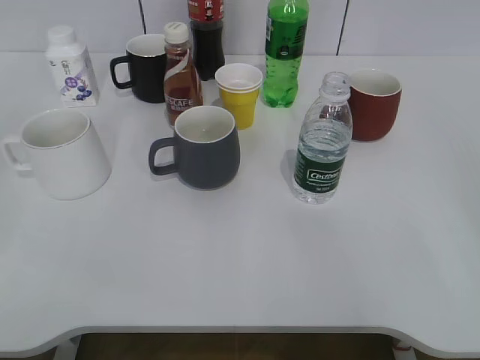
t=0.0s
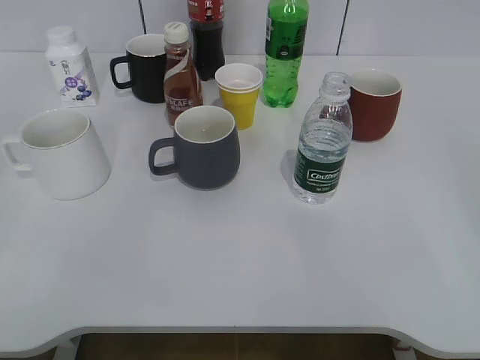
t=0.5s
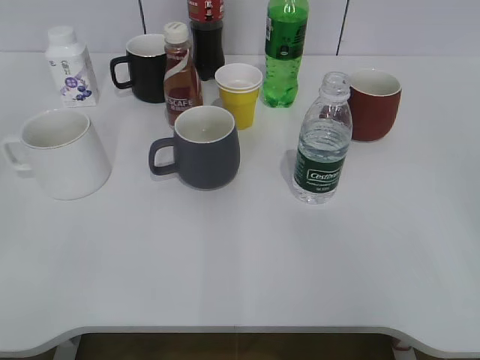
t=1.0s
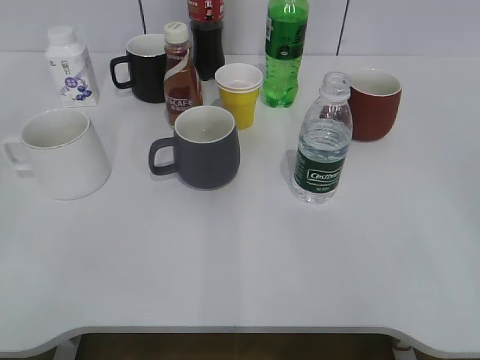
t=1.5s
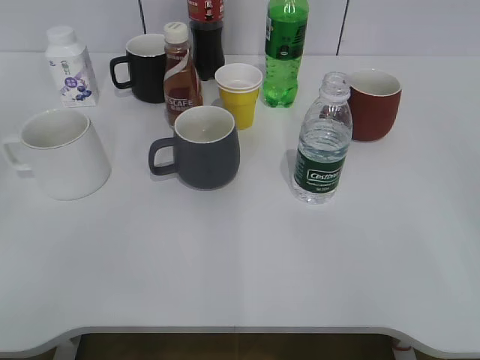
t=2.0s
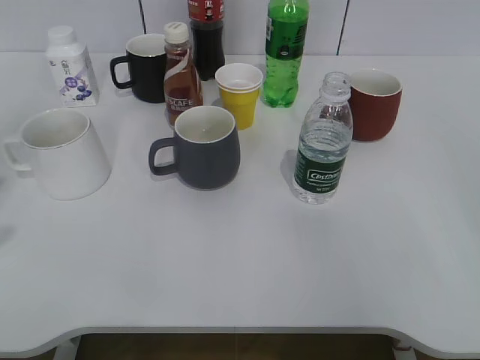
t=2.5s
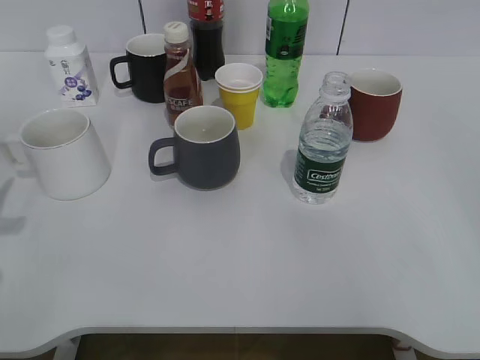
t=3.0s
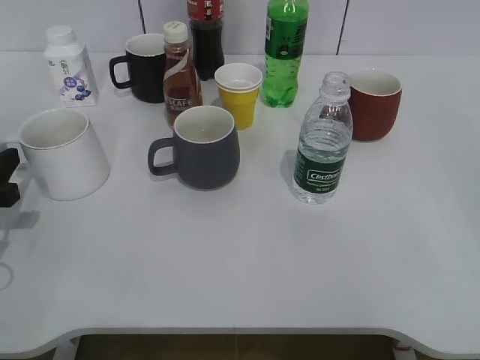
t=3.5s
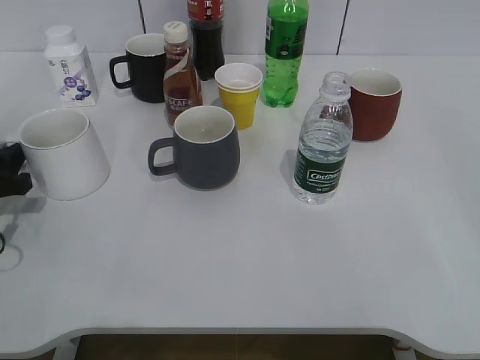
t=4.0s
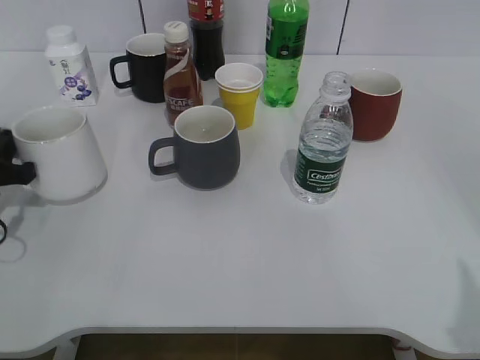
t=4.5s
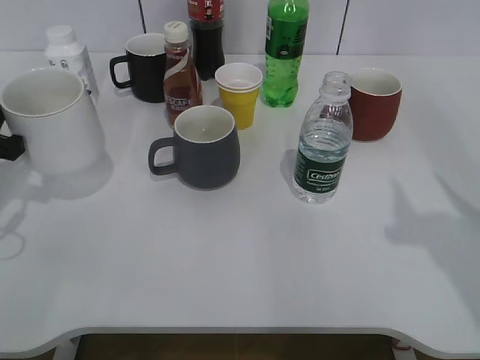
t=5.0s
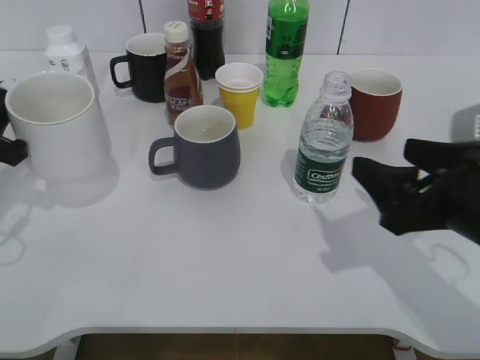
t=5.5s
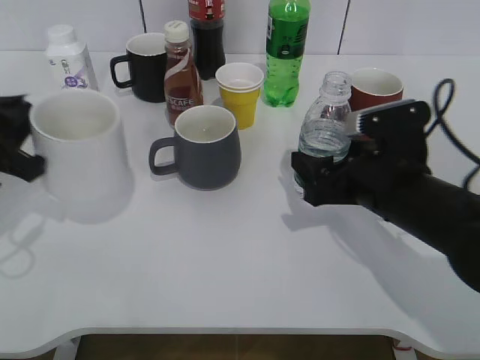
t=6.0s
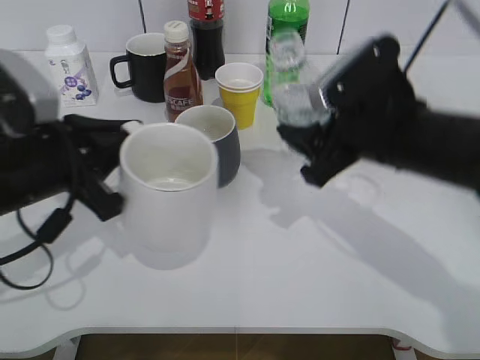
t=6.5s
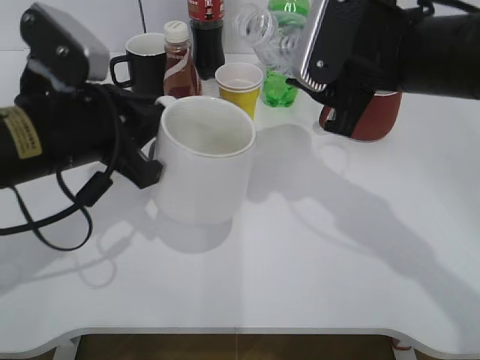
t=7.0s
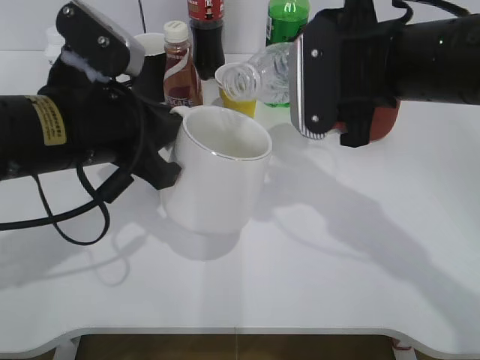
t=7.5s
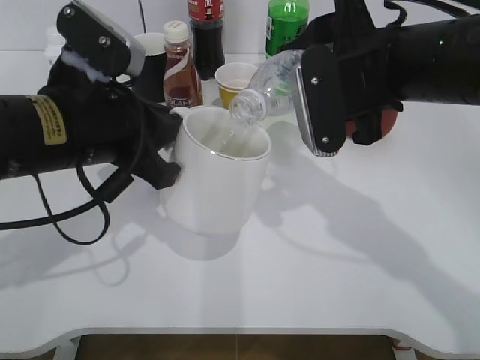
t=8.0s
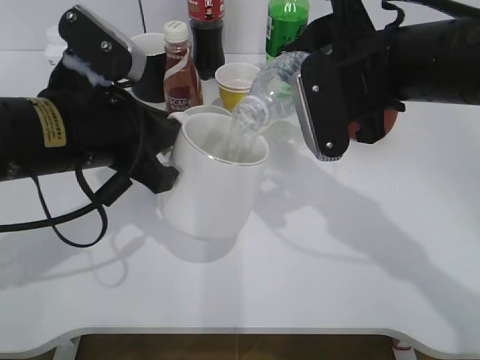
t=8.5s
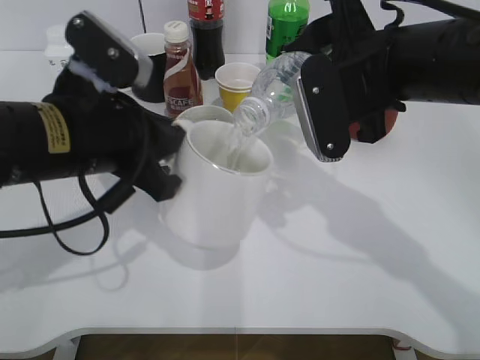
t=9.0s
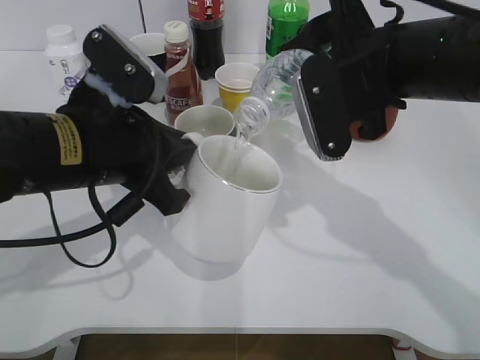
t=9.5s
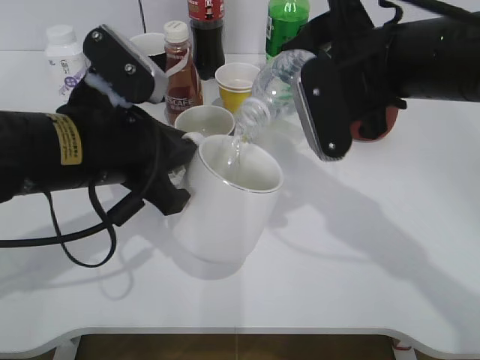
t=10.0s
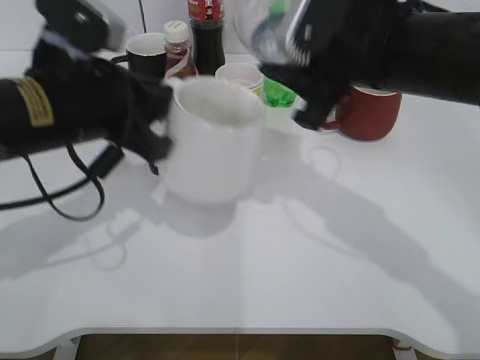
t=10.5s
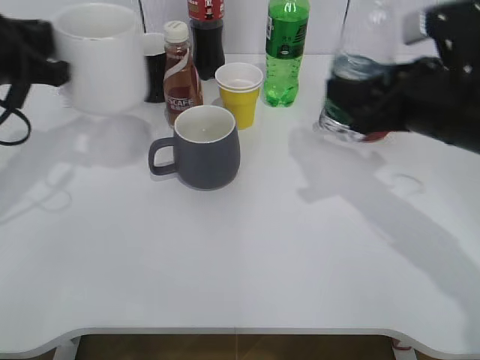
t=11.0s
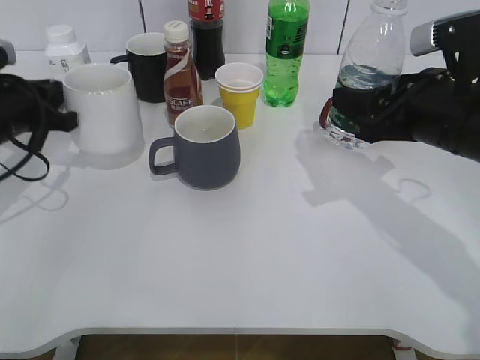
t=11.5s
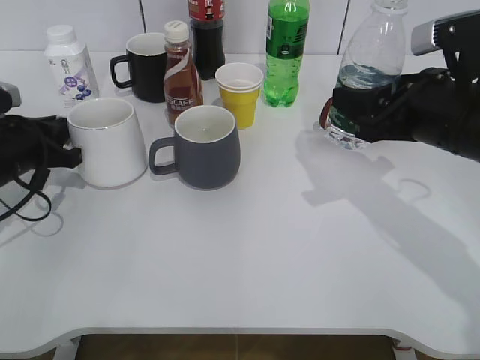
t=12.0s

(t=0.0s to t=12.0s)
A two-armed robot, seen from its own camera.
Step, t=2.0s - t=4.0s: Grasp the white cup with left gripper.
Step, t=4.5s - t=5.0s: Lift the white cup with left gripper.
Step, t=5.5s - t=6.0s: Grasp the bottle with water with right gripper.
Step, t=6.5s - t=10.0s: Pour the water from bottle to cup with right gripper.
t=2.0s - t=4.0s: The left gripper moves forward and downward, approximately 35 cm.
t=4.0s - t=6.0s: The left gripper heads upward, covering roughly 10 cm, and closes up; the right gripper travels forward, to the left and downward by roughly 35 cm, and opens its fingers.
t=6.0s - t=8.0s: The right gripper is displaced upward by about 10 cm, and closes; the left gripper is displaced to the right by about 15 cm.
t=8.0s - t=10.0s: There are only small adjustments of the grippers.
t=10.0s - t=12.0s: The right gripper is displaced to the right by approximately 10 cm; the left gripper goes about 20 cm to the left, downward and forward.

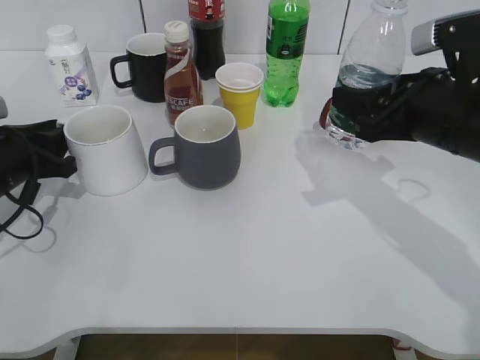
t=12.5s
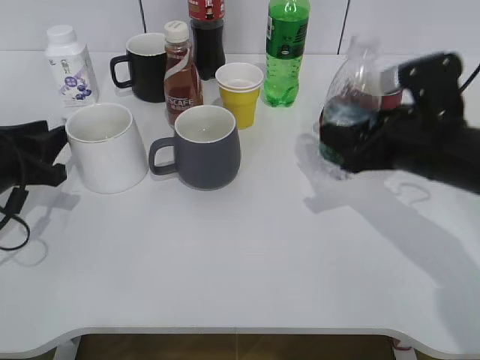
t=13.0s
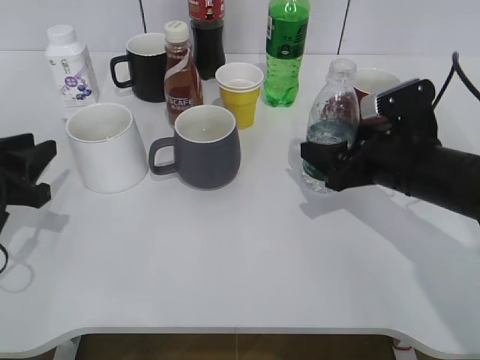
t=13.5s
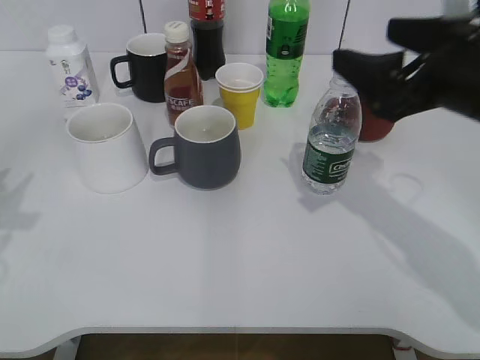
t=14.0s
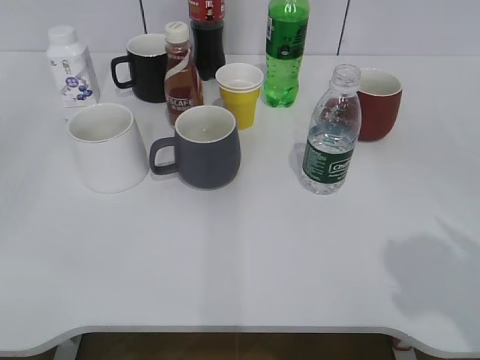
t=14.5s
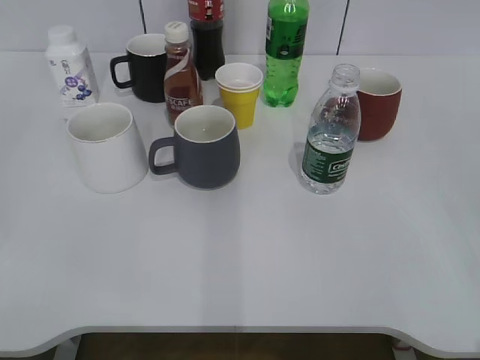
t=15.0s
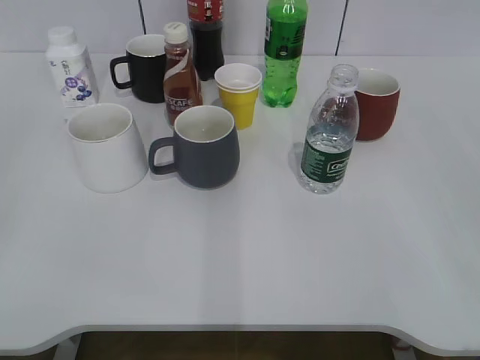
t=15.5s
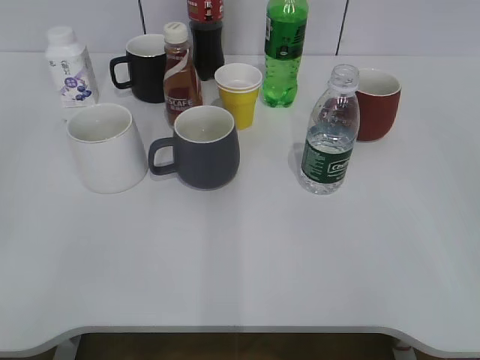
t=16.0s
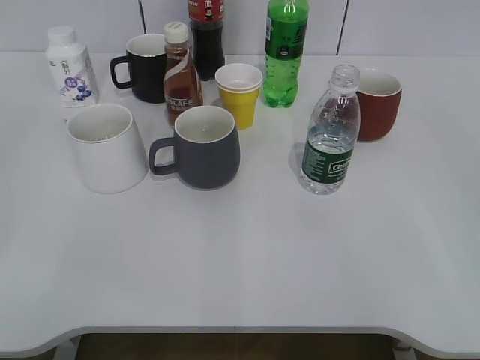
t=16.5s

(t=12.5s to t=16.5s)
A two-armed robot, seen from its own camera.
Step, t=12.5s - t=13.5s: Place the water bottle on the table with right gripper.
t=12.5s - t=14.5s: The right gripper goes approximately 20 cm backward and upward, and opens. Meanwhile the left gripper shifts some 35 cm backward and upward, and opens its fingers.
t=14.5s - t=16.5s: The right gripper is displaced backward and to the right by about 10 cm. Meanwhile the left gripper travels downward by roughly 5 cm.

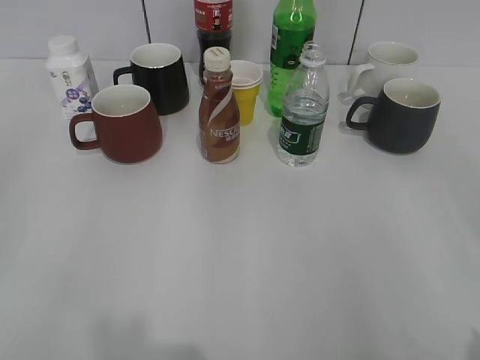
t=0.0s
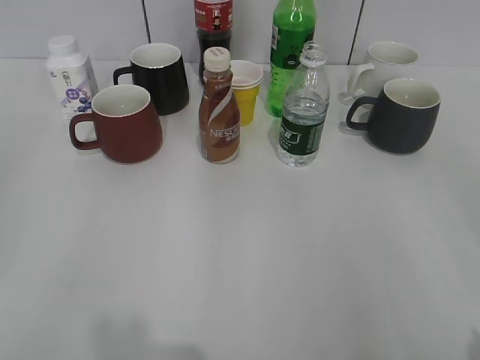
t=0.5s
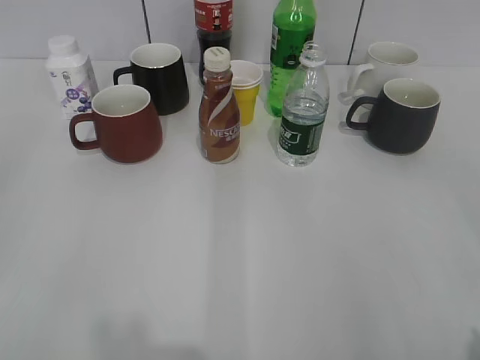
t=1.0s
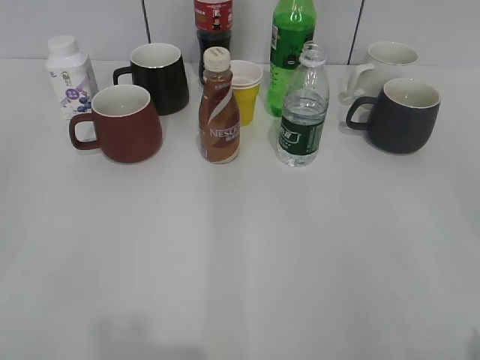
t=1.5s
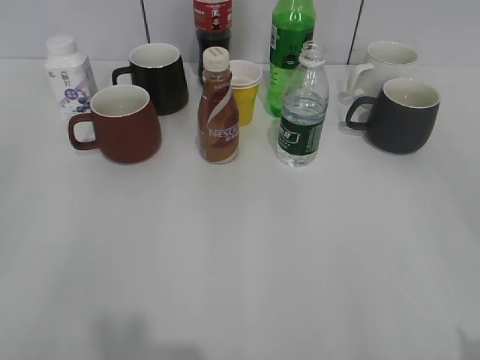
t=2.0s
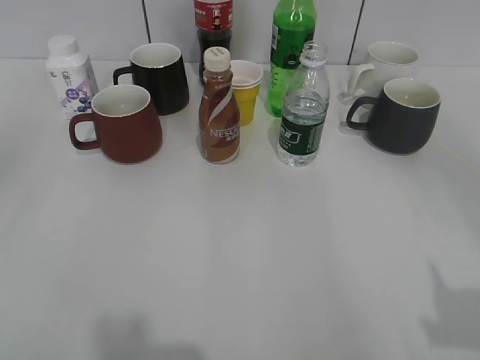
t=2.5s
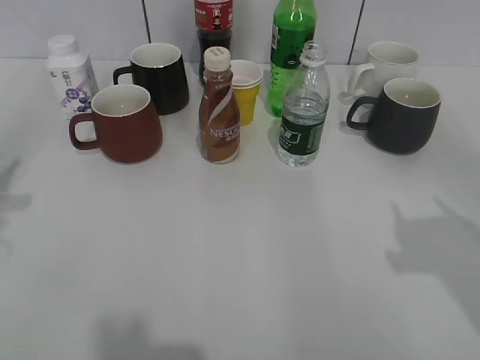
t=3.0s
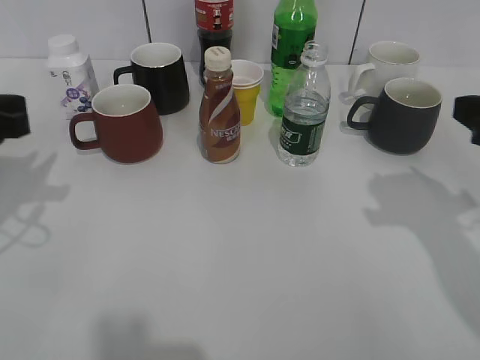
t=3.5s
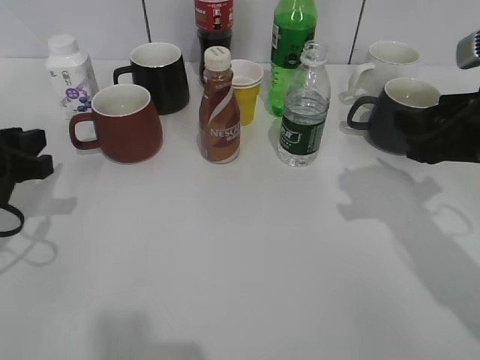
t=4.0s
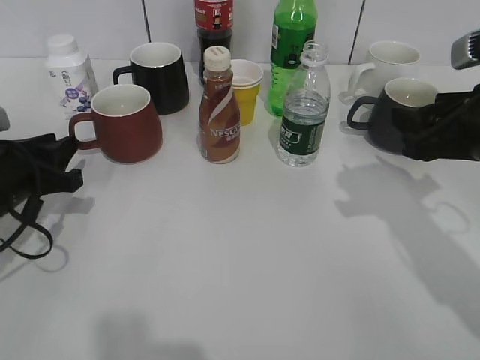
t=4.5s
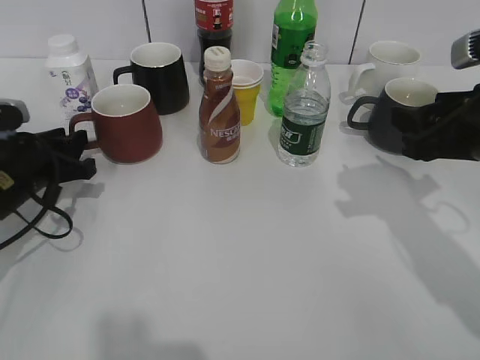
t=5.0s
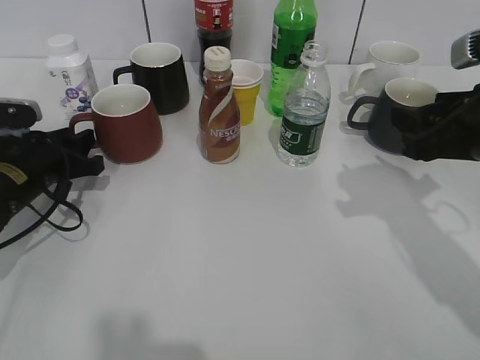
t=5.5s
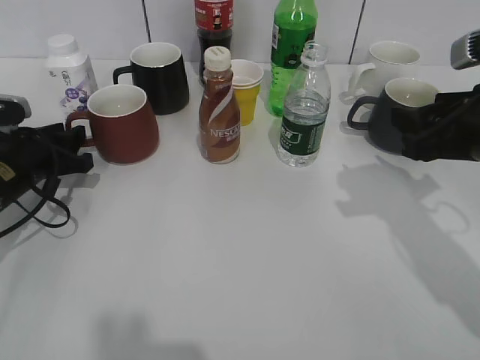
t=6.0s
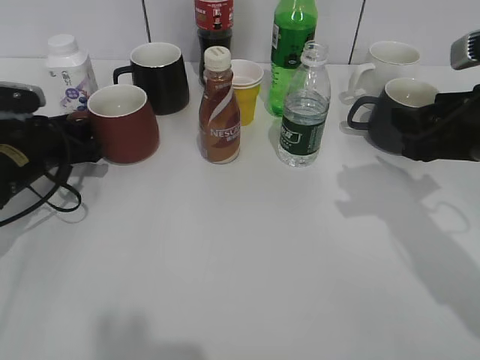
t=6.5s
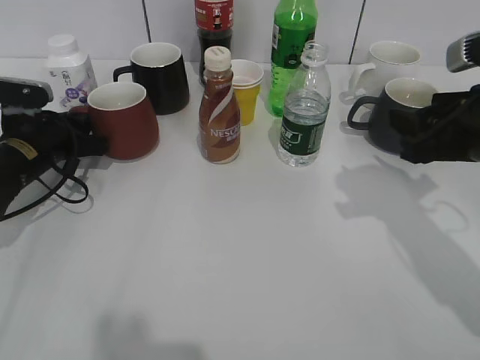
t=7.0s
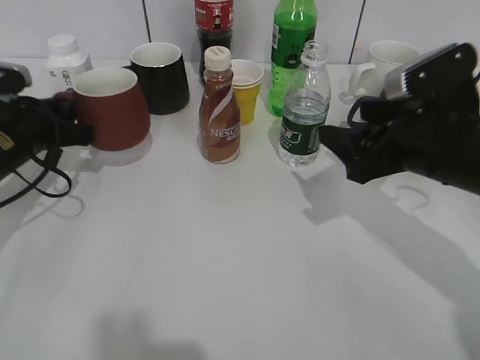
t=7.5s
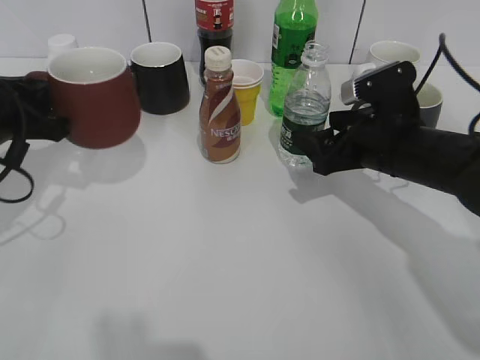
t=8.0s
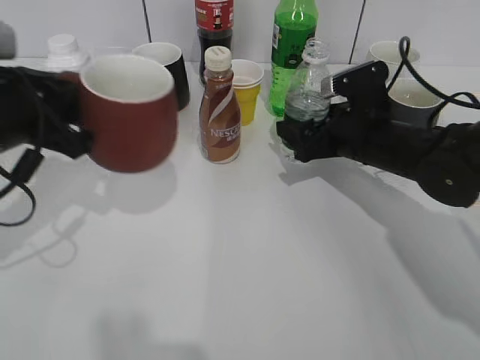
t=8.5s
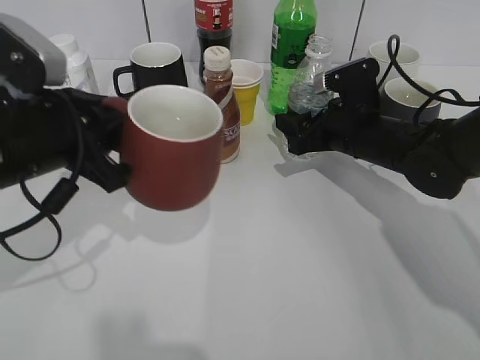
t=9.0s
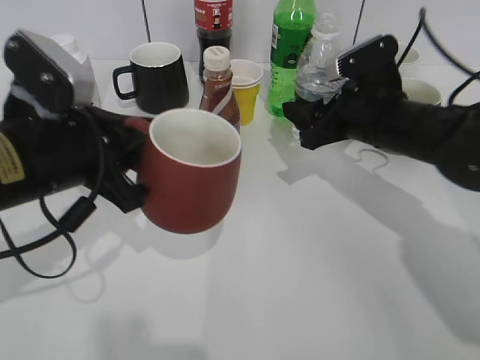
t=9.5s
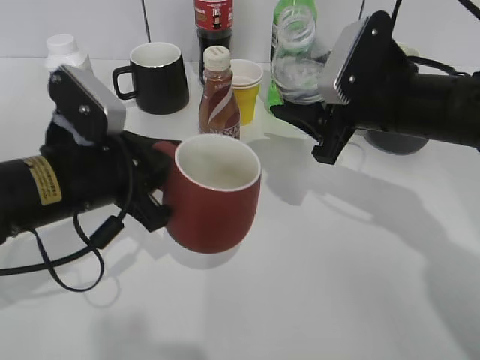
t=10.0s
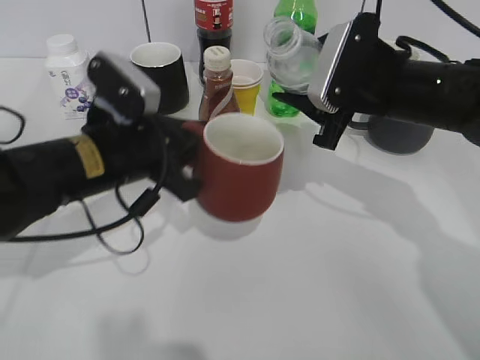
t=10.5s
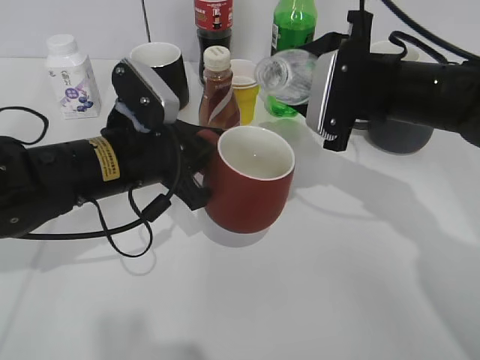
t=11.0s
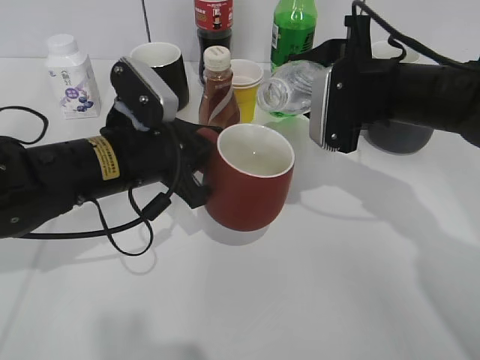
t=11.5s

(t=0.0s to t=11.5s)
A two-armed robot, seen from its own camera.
Step, t=2.0s - t=6.5s: Grasp the red cup with left gripper.
Step, t=8.0s - t=9.0s: Grasp the bottle with water with right gripper.
t=2.0s - t=4.0s: The left gripper heads forward and downward, covering roughly 25 cm. The right gripper shifts approximately 25 cm forward, and closes up.
t=4.0s - t=6.0s: The left gripper moves forward and downward, some 10 cm.
t=6.0s - t=7.5s: The right gripper opens; the left gripper closes.
t=7.5s - t=9.5s: The right gripper shifts about 10 cm forward and downward, and closes up. The left gripper moves backward, to the right and upward, approximately 15 cm.
t=9.5s - t=11.5s: The right gripper moves upward, some 5 cm, while the left gripper shifts about 10 cm forward, to the right and downward.
